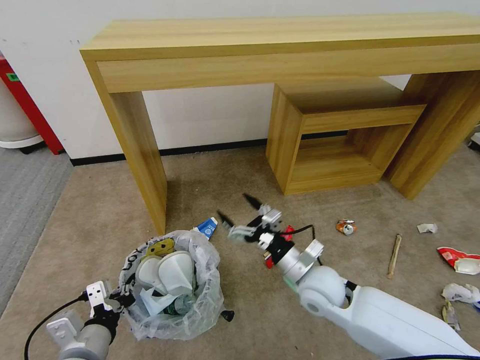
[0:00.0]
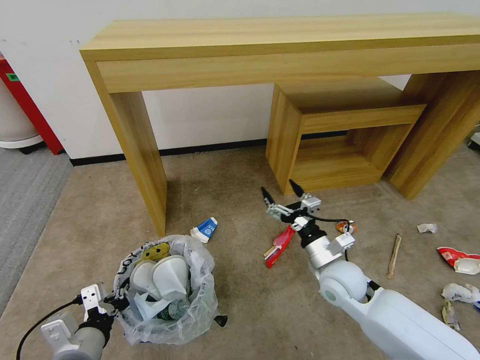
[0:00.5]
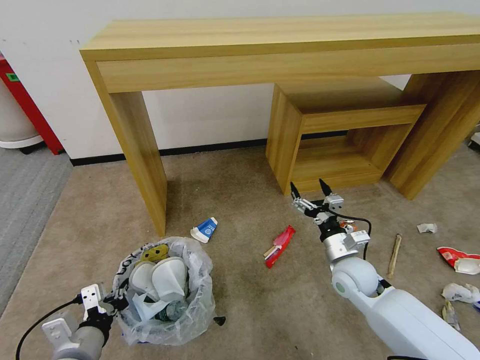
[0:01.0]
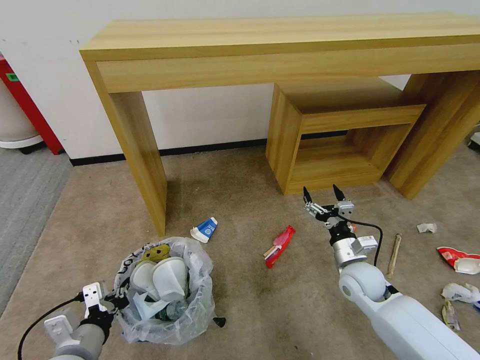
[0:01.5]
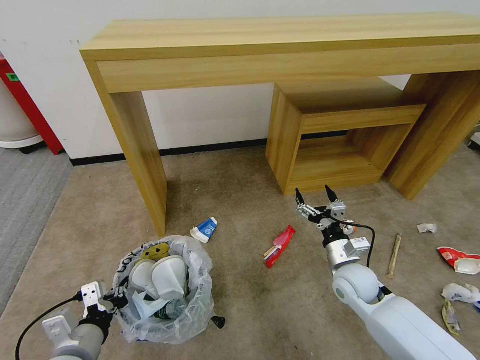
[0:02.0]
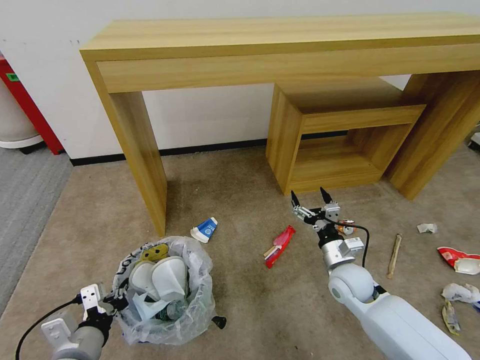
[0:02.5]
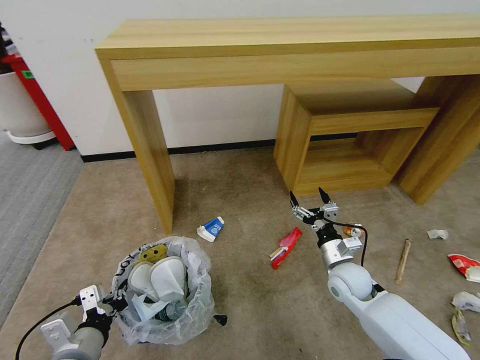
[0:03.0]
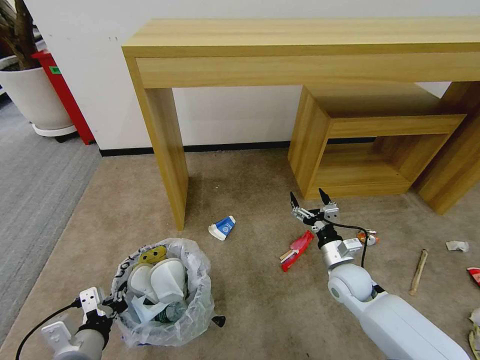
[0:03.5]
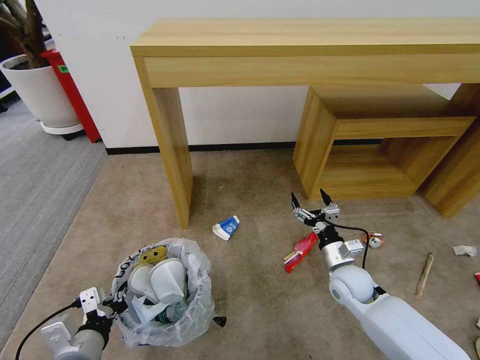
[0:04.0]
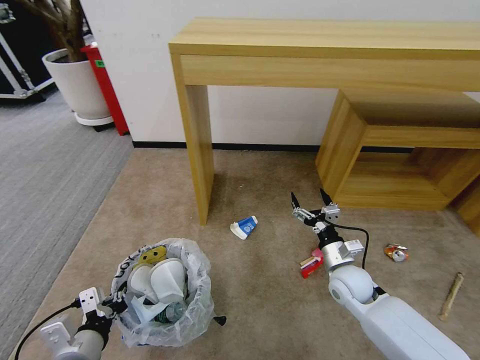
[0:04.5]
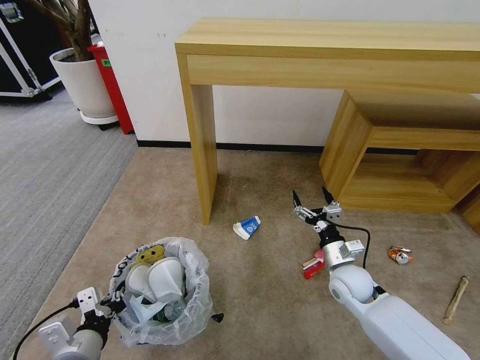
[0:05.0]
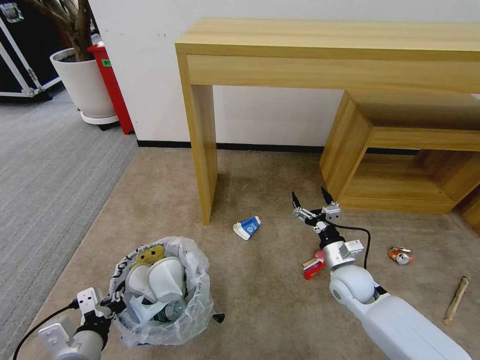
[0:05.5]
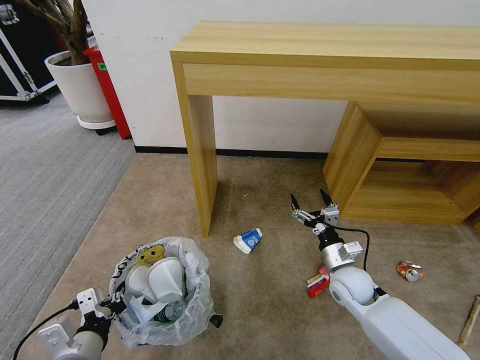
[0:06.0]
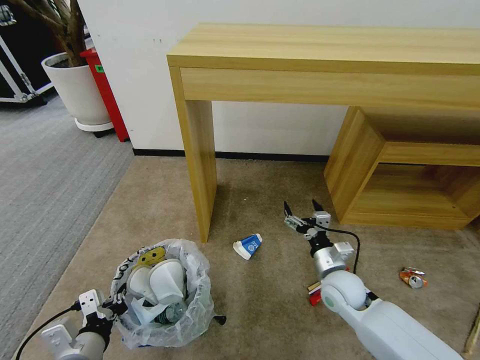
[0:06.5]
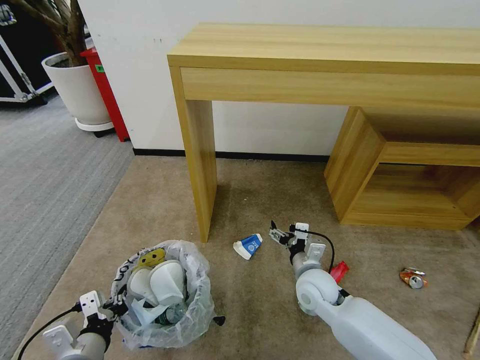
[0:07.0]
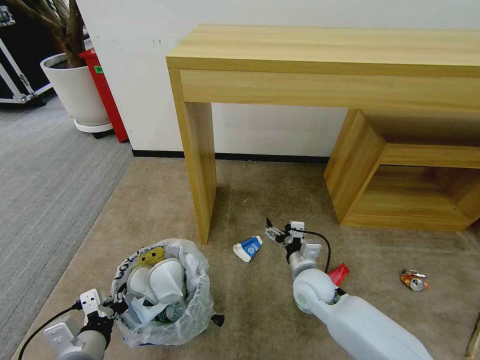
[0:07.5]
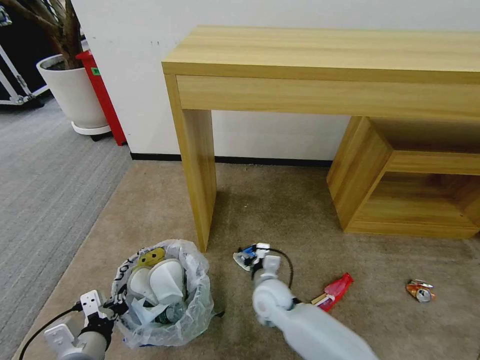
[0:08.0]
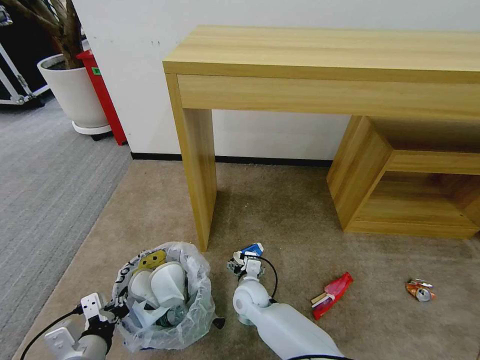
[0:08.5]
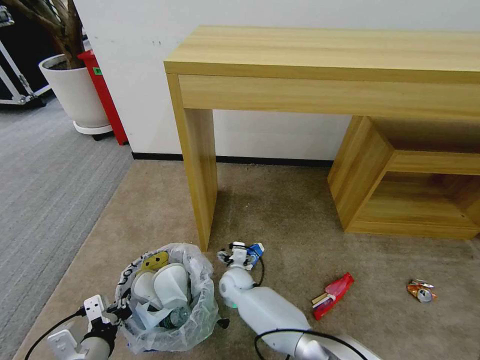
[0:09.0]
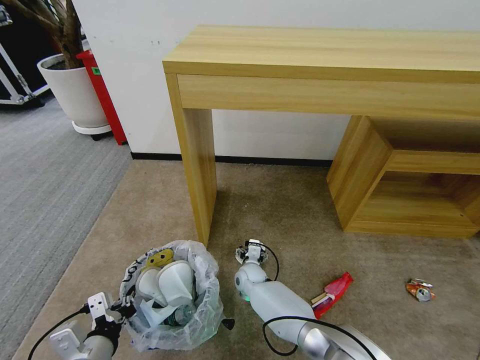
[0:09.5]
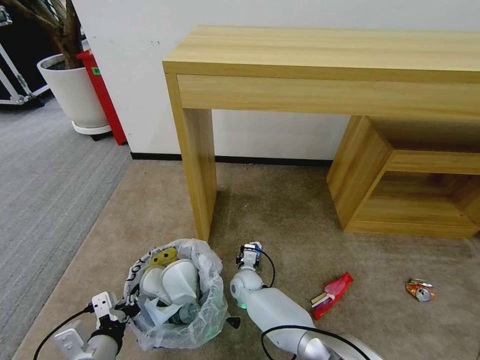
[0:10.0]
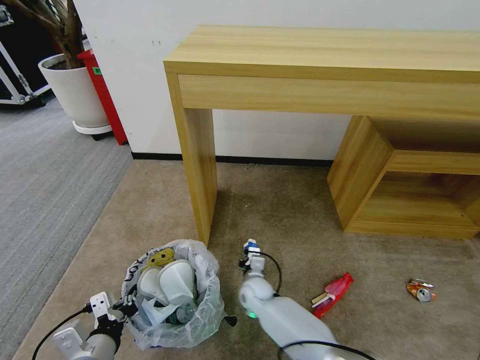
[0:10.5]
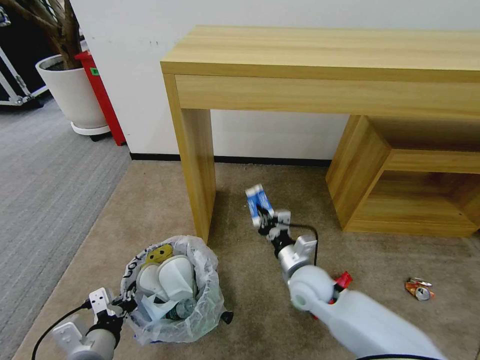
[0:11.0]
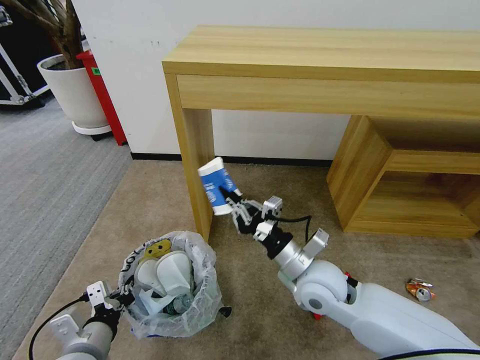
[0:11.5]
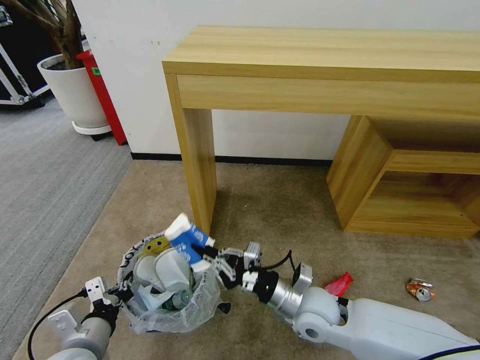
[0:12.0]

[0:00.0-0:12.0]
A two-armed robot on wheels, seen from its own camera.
Task of the whole recording: Pick up the trash bin and place the garbage on the floor into it.
0:00.0 to 0:02.0: The right gripper moves to the right, approximately 10 cm.
0:06.0 to 0:08.0: The right gripper is displaced to the left by about 20 cm.
0:08.0 to 0:10.0: The right gripper is displaced downward, forward and to the left by about 15 cm, and closes up.
0:10.0 to 0:12.0: The right gripper is displaced upward, backward and to the right by about 25 cm, and closes up.

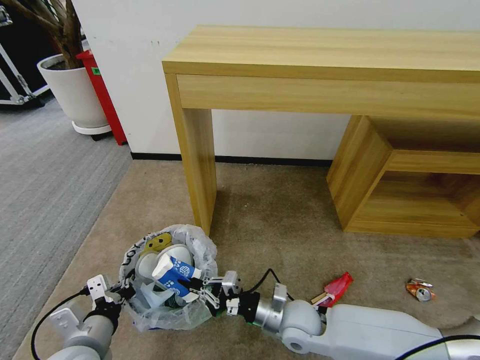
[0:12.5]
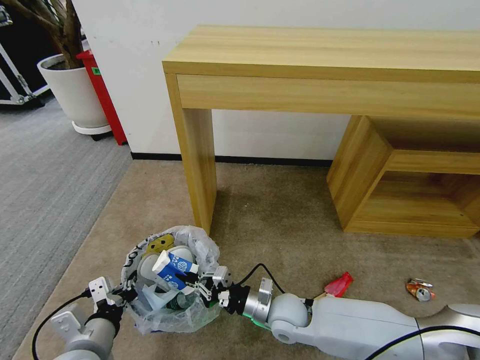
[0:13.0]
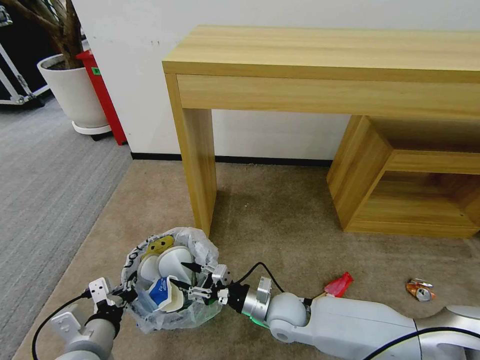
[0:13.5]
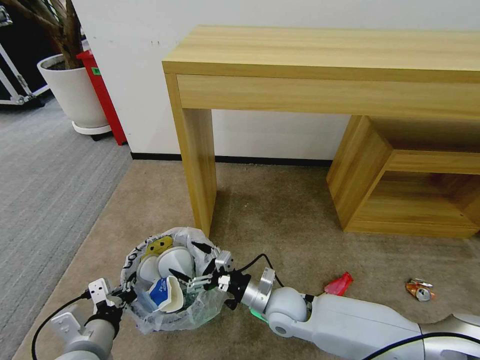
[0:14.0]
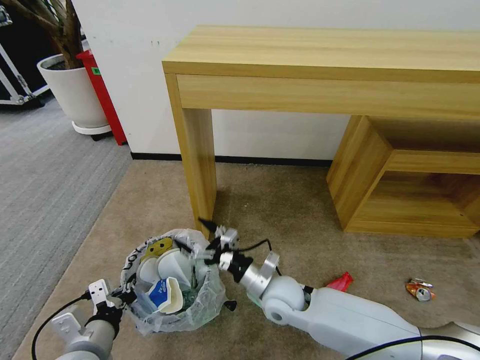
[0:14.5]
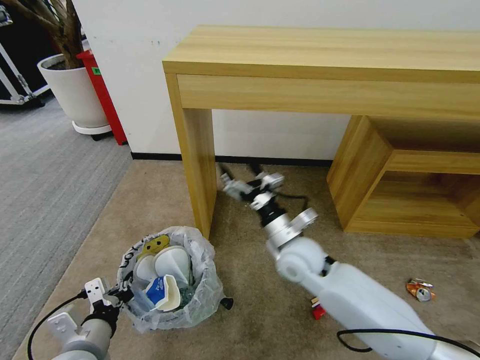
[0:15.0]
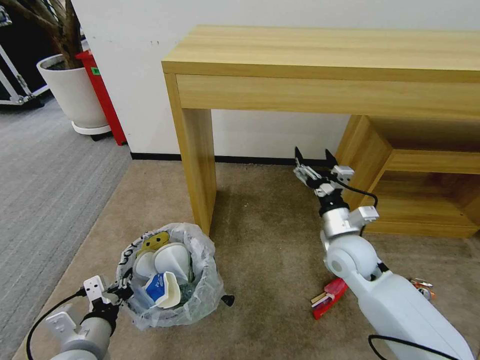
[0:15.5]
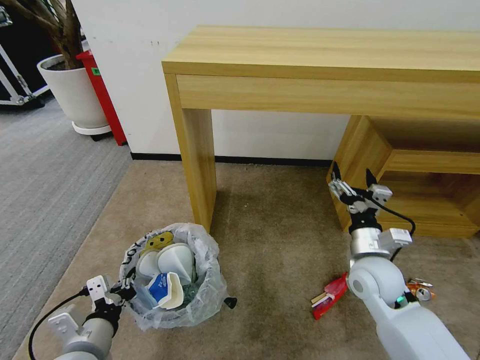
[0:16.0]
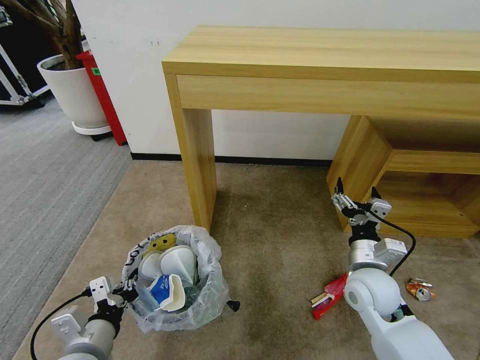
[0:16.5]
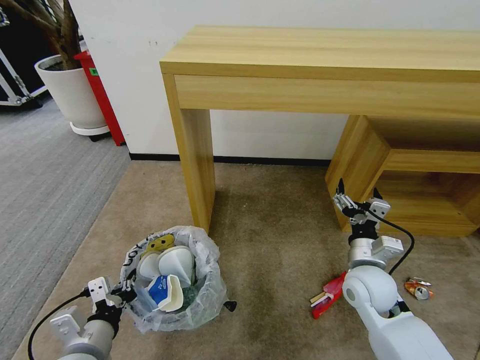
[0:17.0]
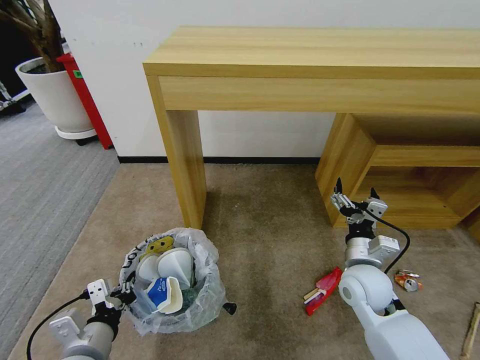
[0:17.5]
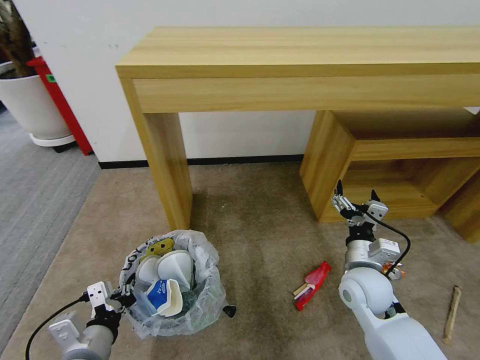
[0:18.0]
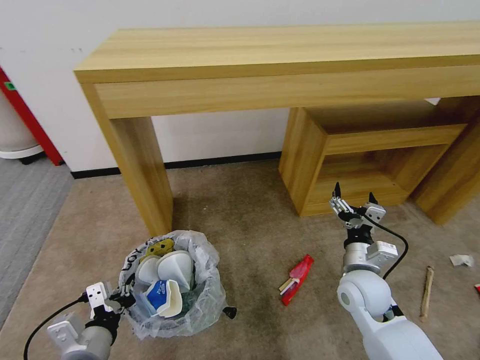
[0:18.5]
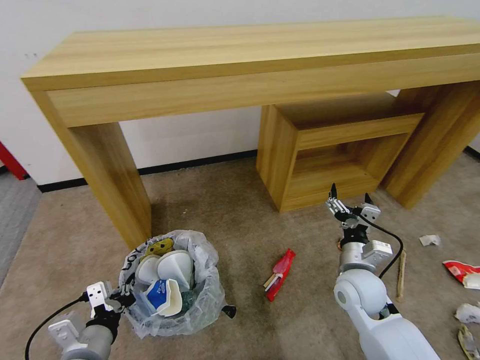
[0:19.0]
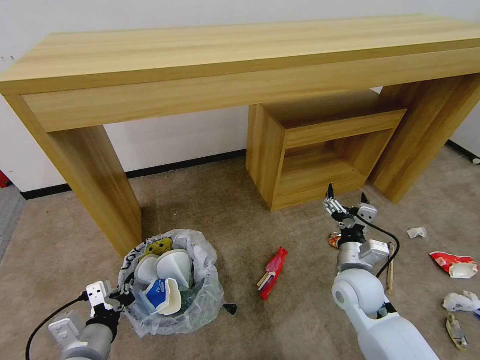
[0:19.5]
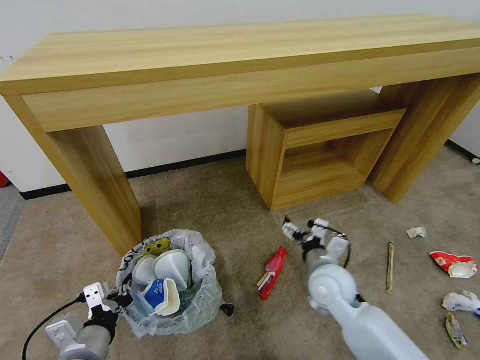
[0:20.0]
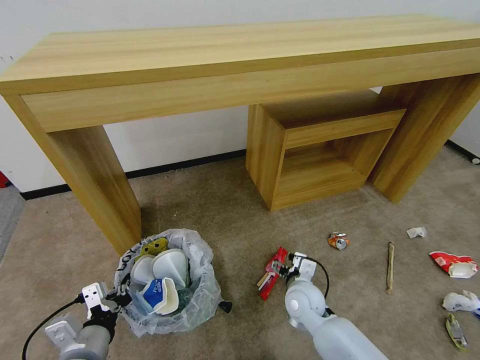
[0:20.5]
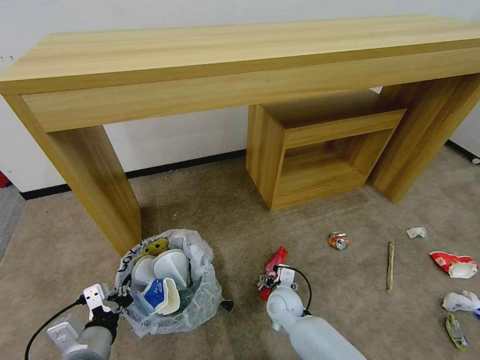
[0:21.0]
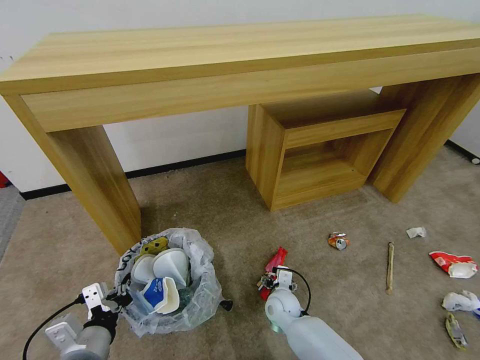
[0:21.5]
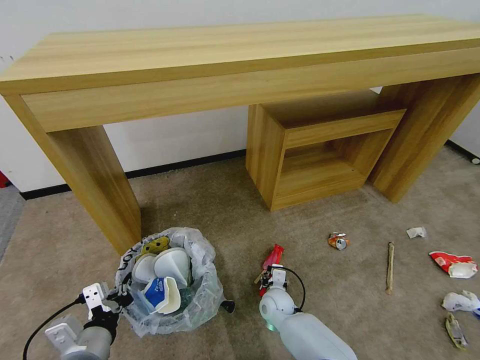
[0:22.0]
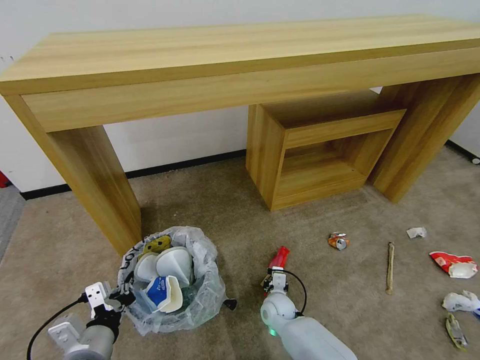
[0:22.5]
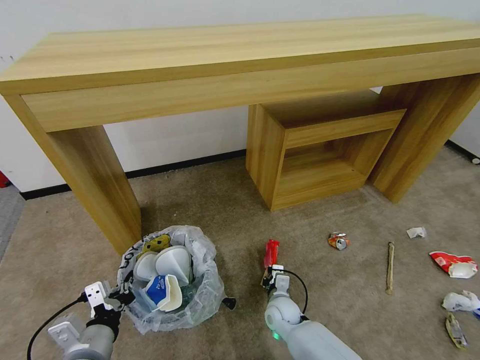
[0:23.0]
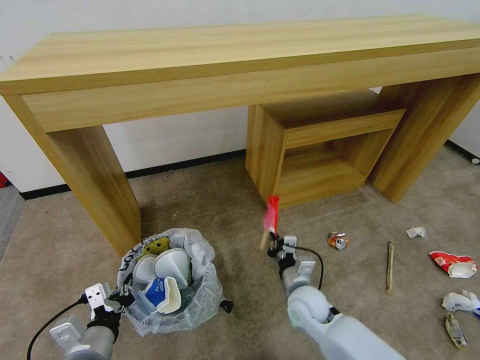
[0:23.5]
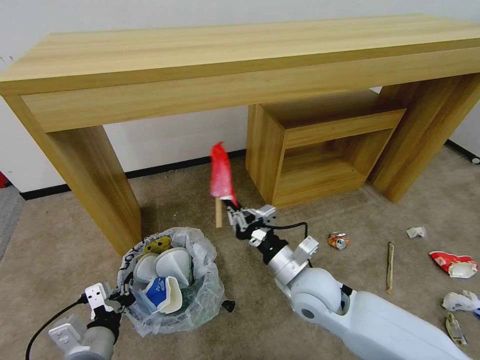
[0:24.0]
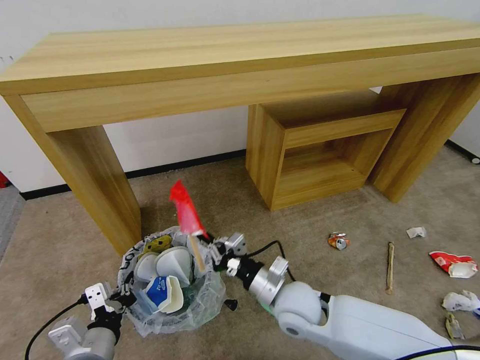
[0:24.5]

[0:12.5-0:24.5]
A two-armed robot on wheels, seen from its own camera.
Task of the whole recording: Pick up the trash bin and place the garbage on the floor into it.
0:12.5 to 0:14.5: The right gripper moves approximately 5 cm, and opens up.
0:14.5 to 0:16.5: The right gripper goes some 15 cm to the right.
0:18.5 to 0:20.5: The right gripper goes some 15 cm downward and to the left.
0:20.5 to 0:22.5: The right gripper moves downward, some 10 cm, and closes.
0:22.5 to 0:24.5: The right gripper shifts some 20 cm upward.

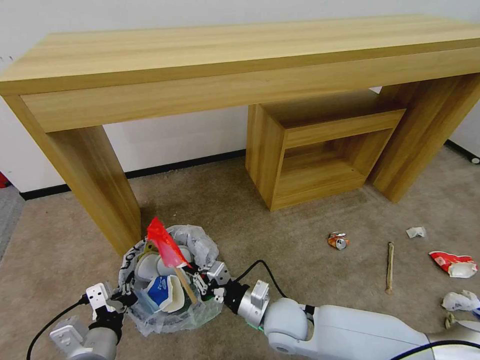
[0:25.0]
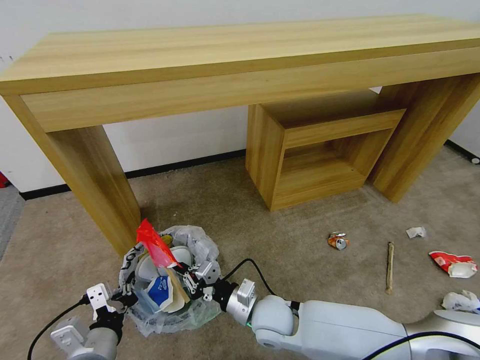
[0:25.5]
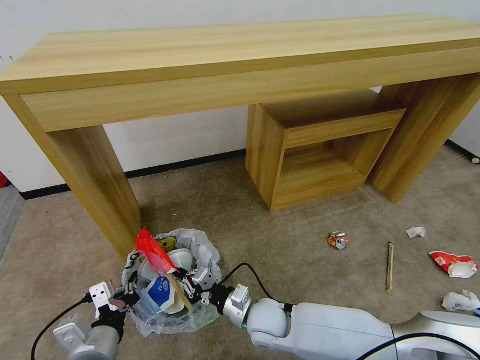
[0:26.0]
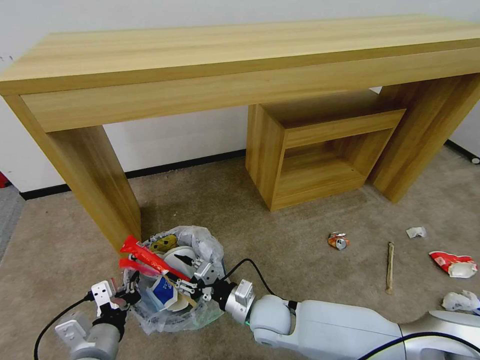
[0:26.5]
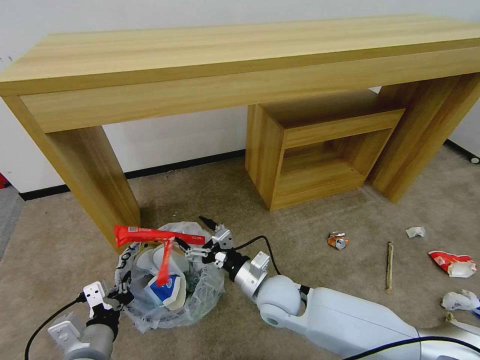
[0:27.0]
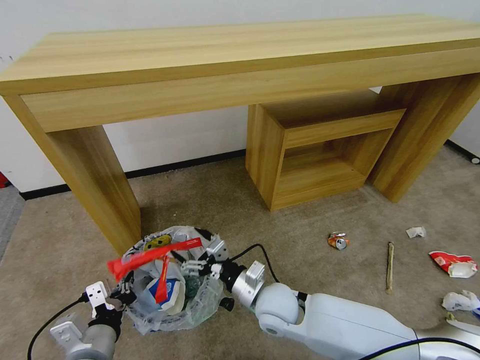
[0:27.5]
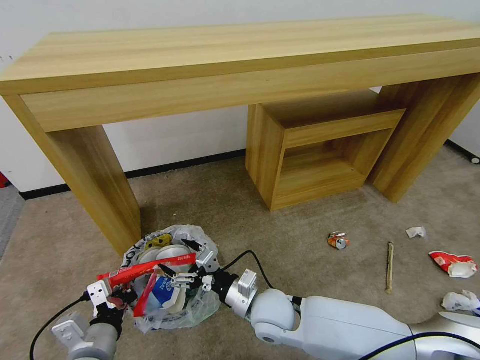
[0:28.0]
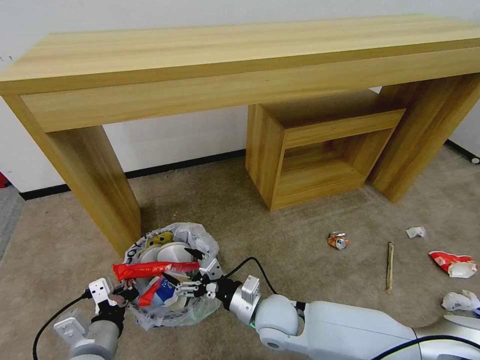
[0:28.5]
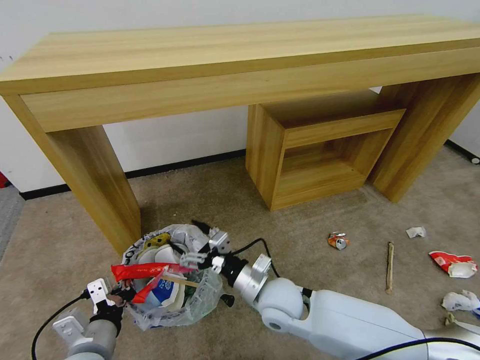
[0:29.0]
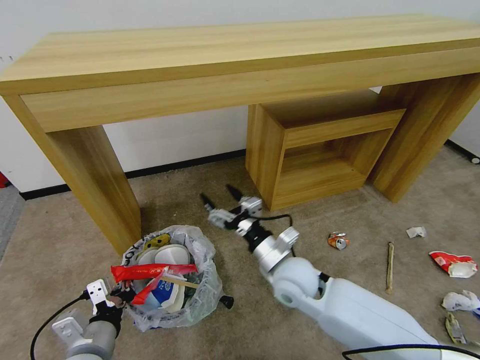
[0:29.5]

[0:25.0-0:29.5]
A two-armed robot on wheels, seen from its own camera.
Task of the whole recording: Pick up the trash bin and place the garbage on the floor into it.
0:25.0 to 0:27.0: The right gripper changes place by roughly 5 cm, and opens up.
0:27.0 to 0:29.5: The right gripper moves about 5 cm.
